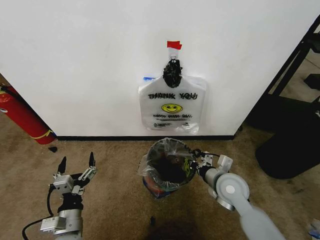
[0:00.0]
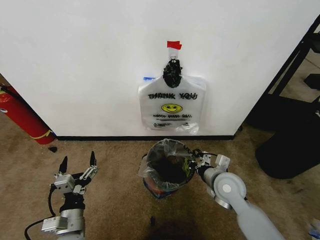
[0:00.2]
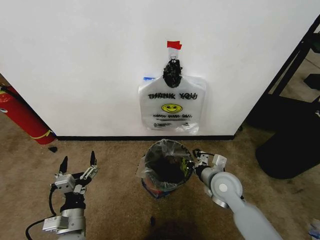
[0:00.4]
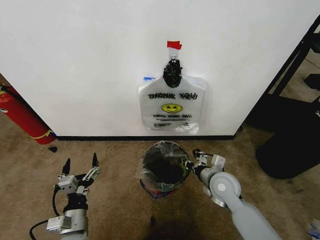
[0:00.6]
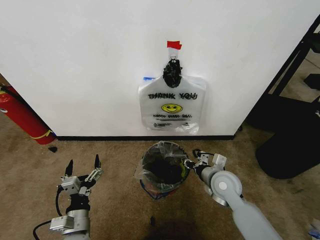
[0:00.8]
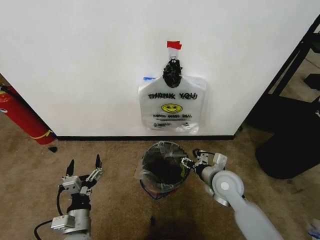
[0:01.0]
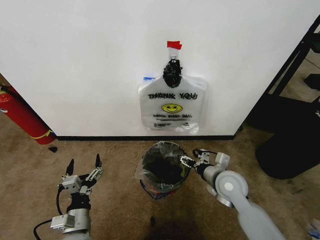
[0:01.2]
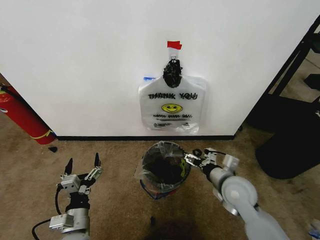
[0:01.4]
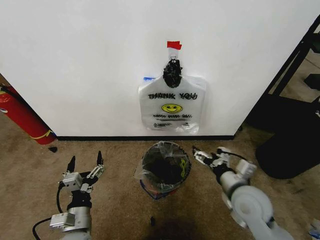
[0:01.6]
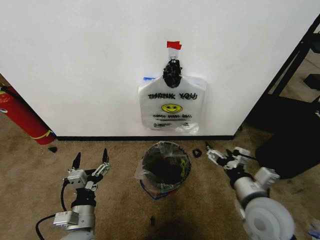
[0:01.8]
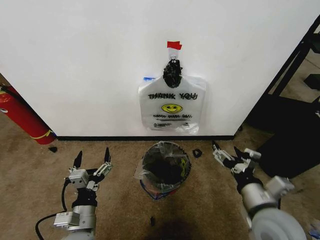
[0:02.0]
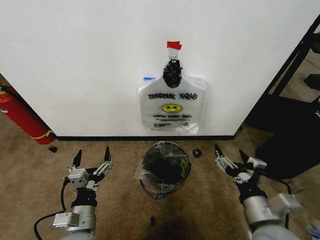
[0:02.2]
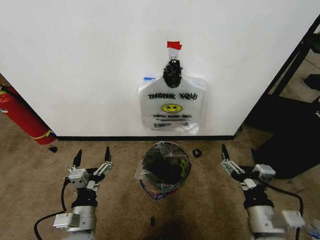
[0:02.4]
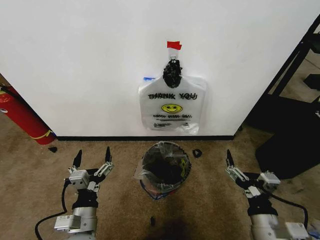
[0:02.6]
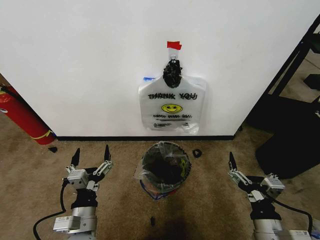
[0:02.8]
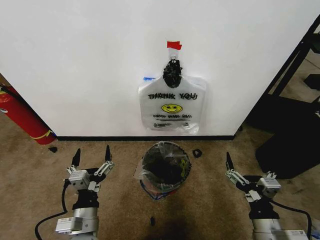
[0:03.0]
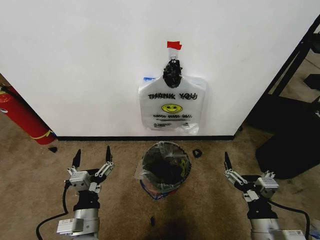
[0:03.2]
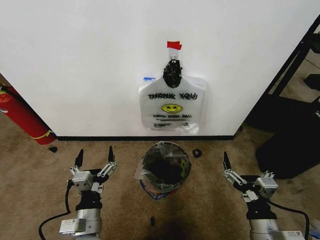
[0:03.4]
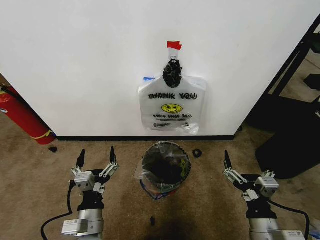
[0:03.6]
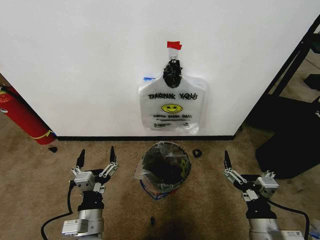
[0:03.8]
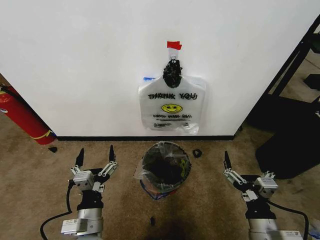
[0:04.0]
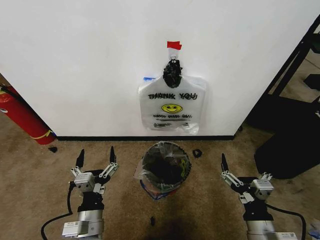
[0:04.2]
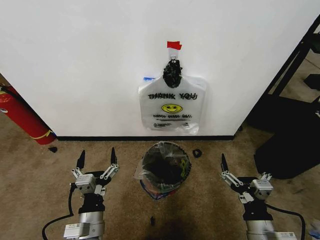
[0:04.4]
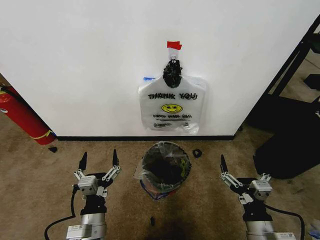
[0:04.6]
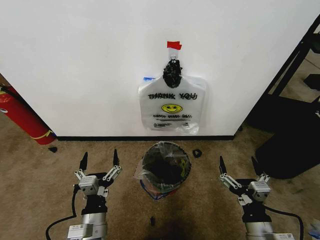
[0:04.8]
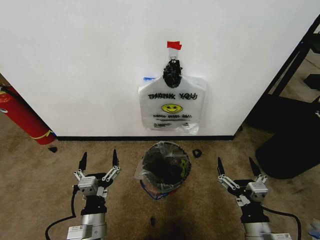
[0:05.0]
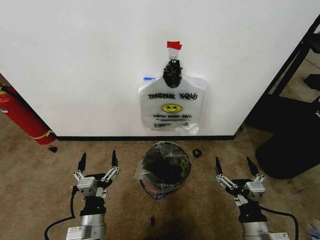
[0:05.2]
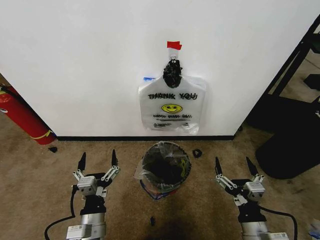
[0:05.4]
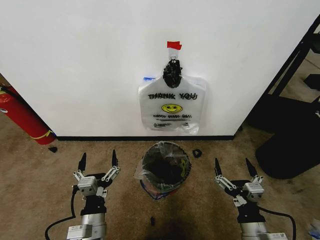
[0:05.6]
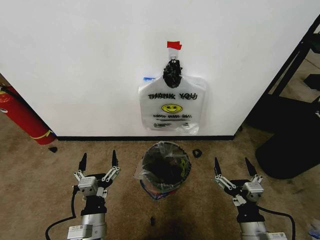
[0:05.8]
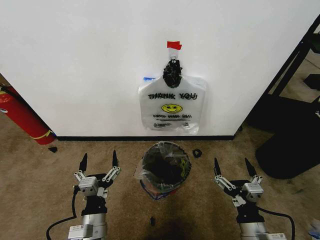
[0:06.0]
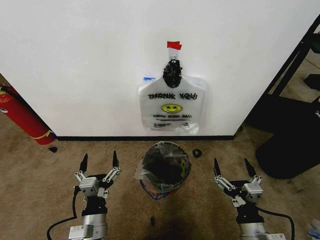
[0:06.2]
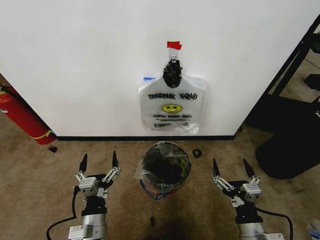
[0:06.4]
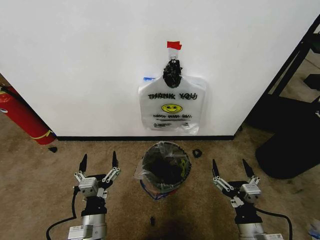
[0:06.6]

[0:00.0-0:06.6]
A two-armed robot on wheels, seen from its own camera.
Task of the whole recording: Pick up the garbage bag from the wall and place it over the trash bin.
0:00.0 to 0:01.6: The right gripper ends up roughly 5 cm from where it was, and opens its fingers.
0:01.6 to 0:03.2: The right gripper moves backward, about 15 cm. The left gripper shifts by approximately 5 cm.
0:03.2 to 0:06.6: The grippers make only small movements.

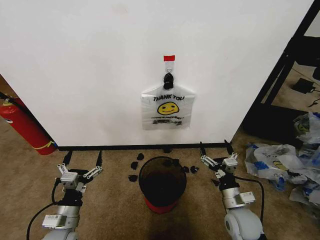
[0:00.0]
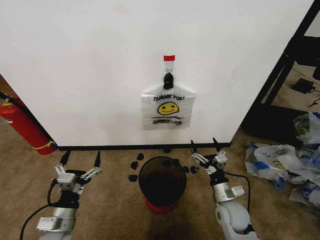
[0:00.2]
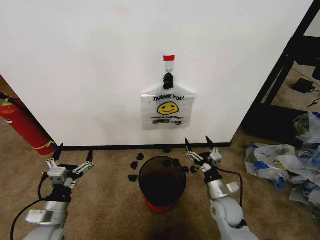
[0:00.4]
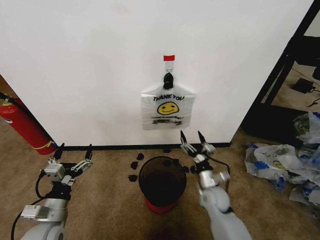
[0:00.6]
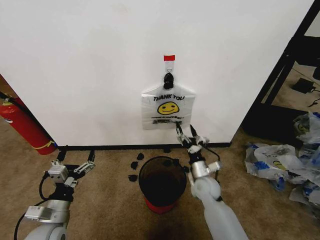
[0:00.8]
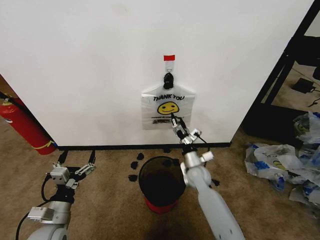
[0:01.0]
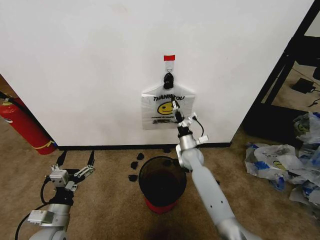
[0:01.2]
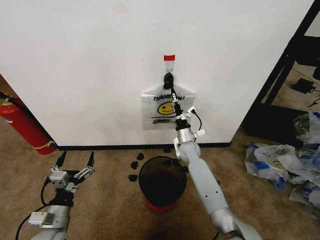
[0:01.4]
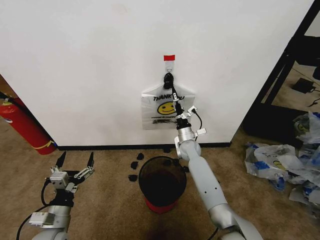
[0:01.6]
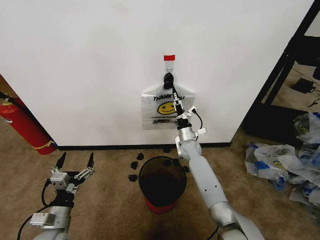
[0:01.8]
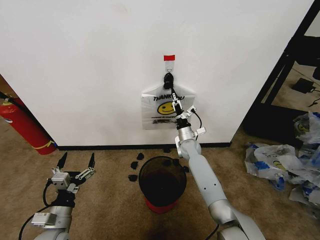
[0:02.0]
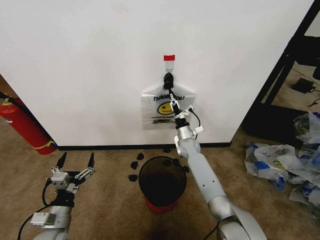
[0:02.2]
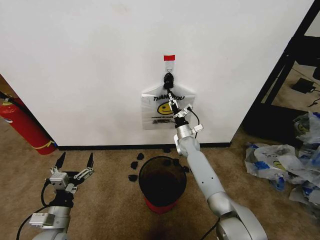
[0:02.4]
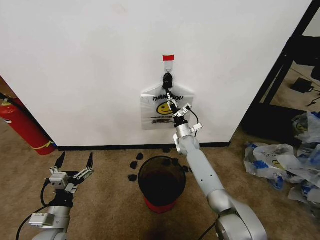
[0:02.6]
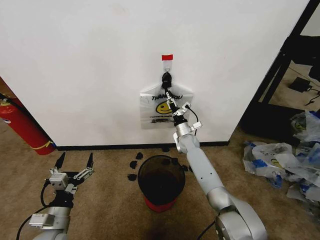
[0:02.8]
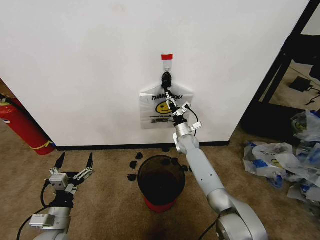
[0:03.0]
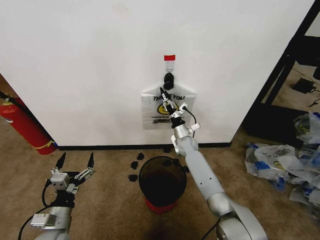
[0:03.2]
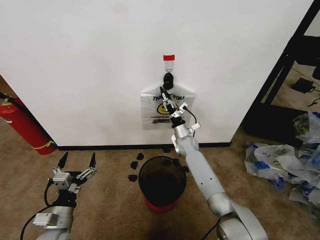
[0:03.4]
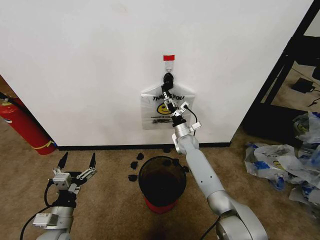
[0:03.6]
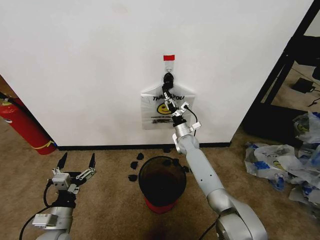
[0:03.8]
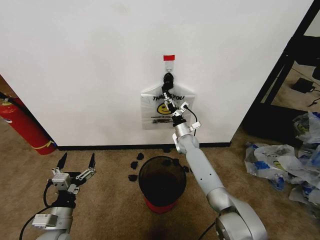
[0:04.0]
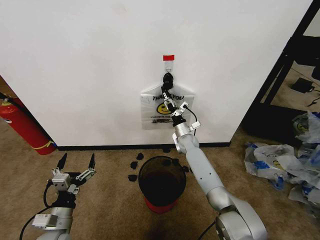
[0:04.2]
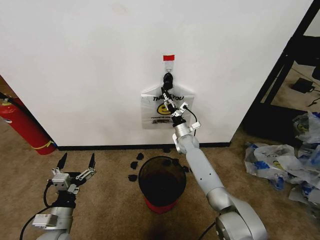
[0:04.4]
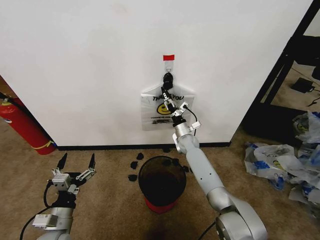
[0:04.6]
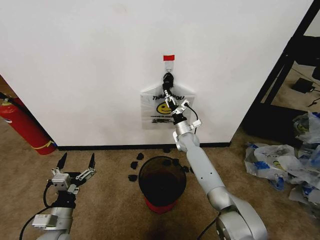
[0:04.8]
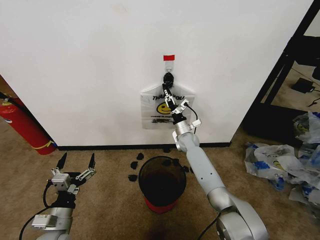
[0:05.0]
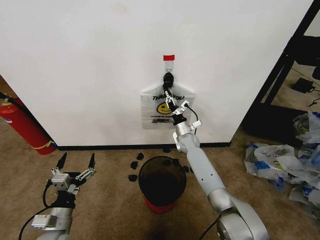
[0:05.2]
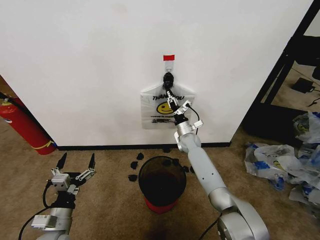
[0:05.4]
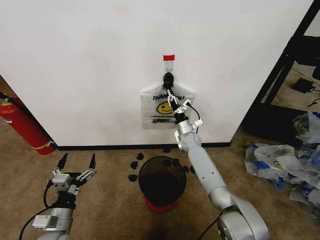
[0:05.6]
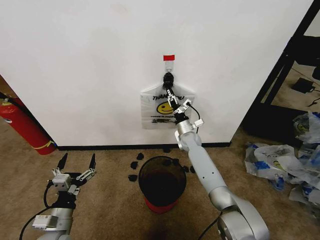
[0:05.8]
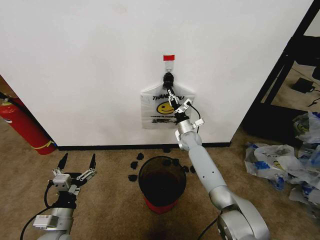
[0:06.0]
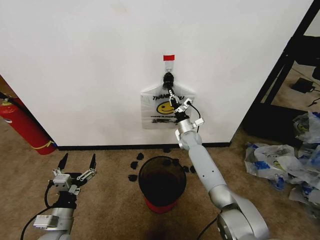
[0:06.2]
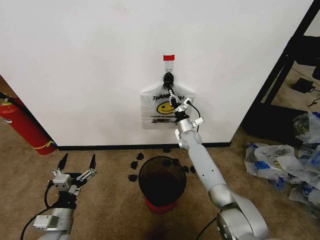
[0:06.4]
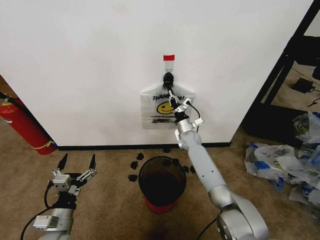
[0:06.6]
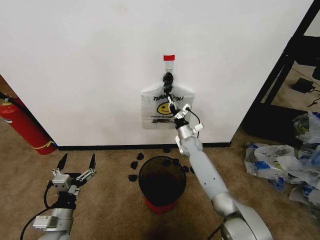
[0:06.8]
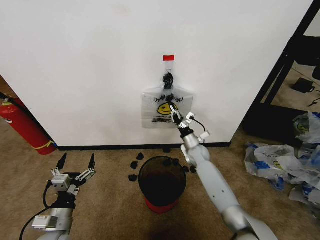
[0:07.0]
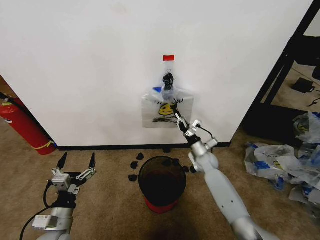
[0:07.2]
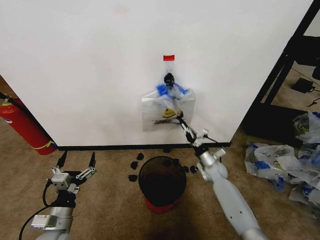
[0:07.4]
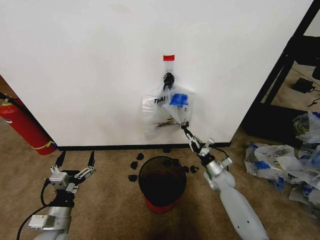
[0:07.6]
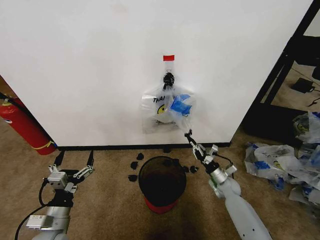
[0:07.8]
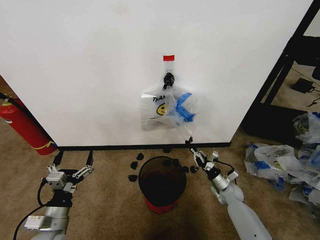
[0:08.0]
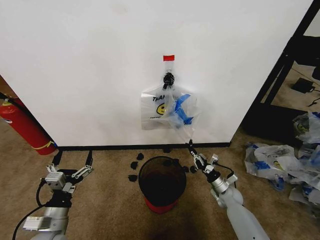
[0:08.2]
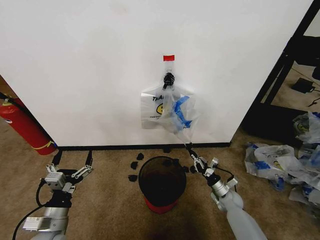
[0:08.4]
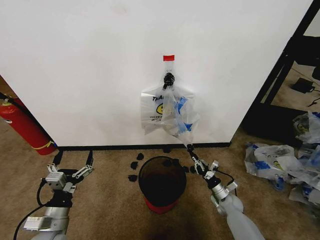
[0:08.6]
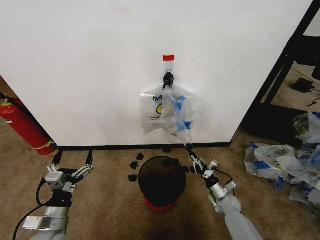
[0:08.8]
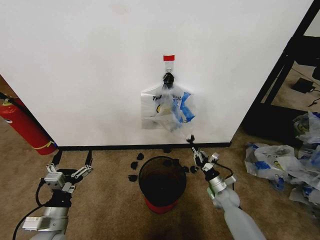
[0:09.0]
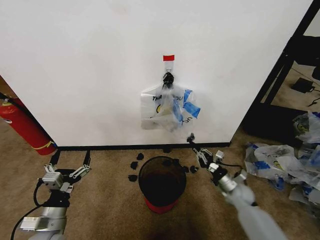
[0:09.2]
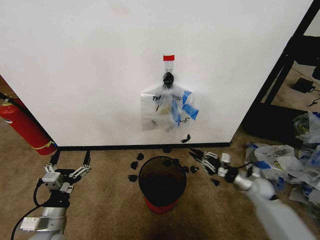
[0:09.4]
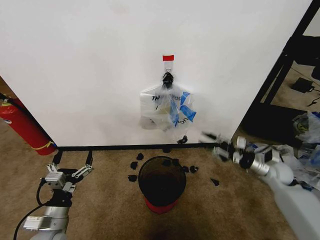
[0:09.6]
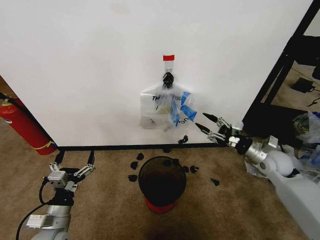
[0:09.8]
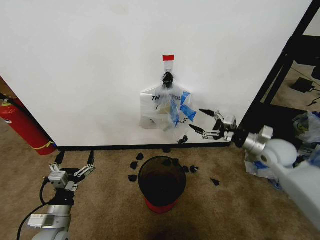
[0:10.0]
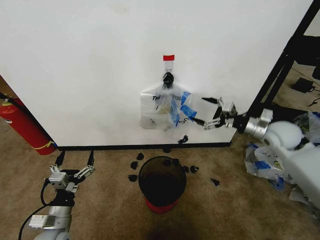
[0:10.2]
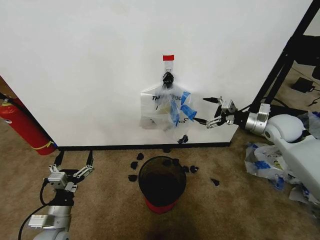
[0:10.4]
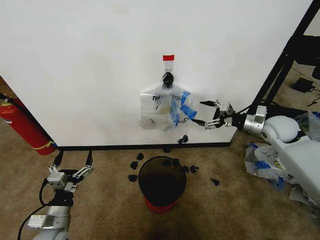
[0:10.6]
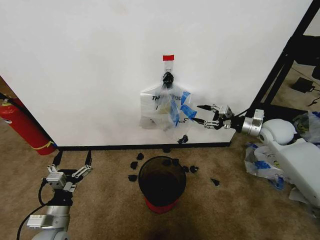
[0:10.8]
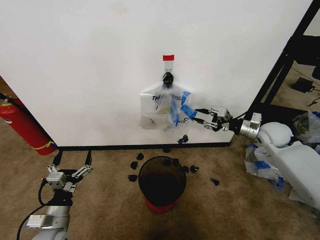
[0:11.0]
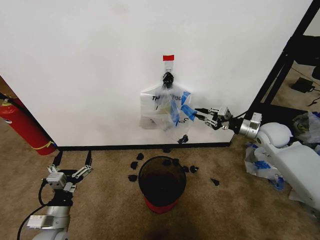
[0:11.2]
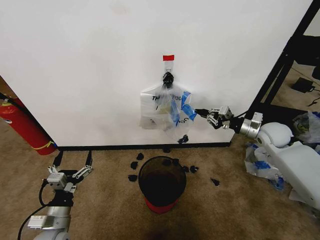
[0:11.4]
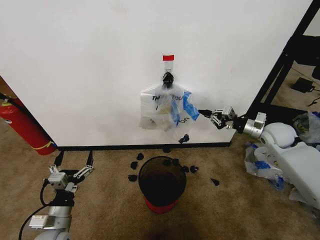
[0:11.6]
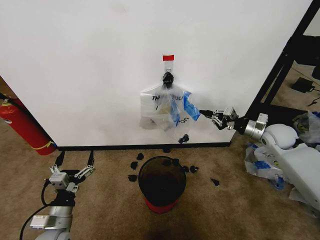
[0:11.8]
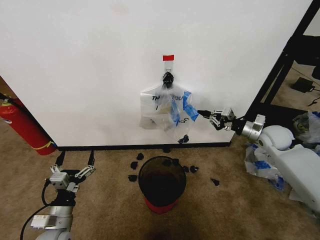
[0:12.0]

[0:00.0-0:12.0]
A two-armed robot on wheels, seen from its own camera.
Task of the whole recording: Pick up the garbage bag from the wall and place it over the trash bin.
0:01.6 to 0:04.4: The grippers stay close to where they were, moving slightly.
0:04.4 to 0:06.0: The right gripper closes.
0:06.0 to 0:07.6: The right gripper is displaced backward, to the right and downward by some 25 cm.
0:07.6 to 0:09.0: The right gripper shifts roughly 5 cm backward.
0:09.0 to 0:10.4: The right gripper shifts some 35 cm upward, and opens.
0:10.4 to 0:12.0: The right gripper moves downward, about 5 cm, and closes up.

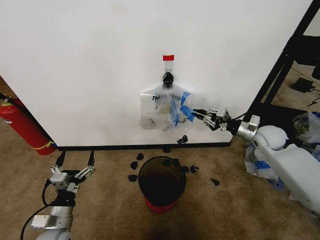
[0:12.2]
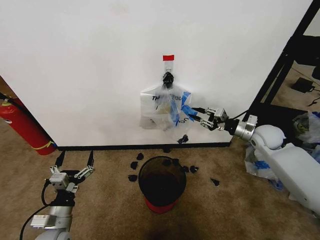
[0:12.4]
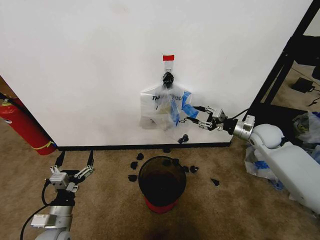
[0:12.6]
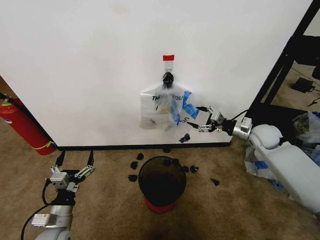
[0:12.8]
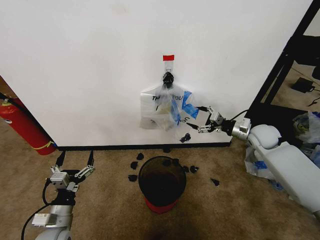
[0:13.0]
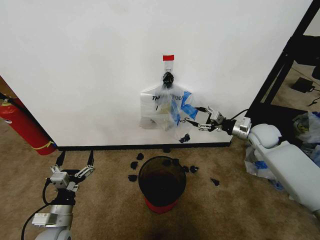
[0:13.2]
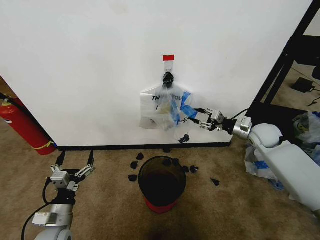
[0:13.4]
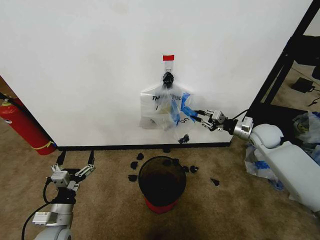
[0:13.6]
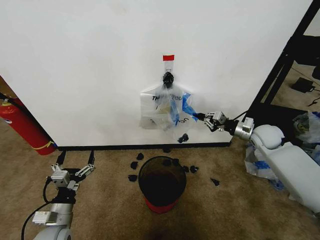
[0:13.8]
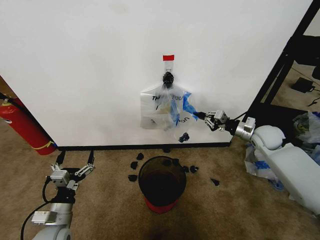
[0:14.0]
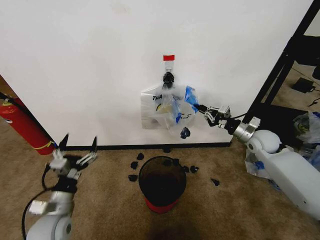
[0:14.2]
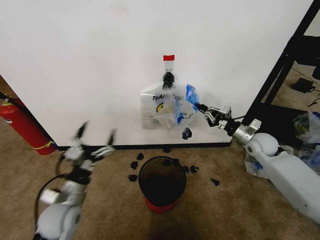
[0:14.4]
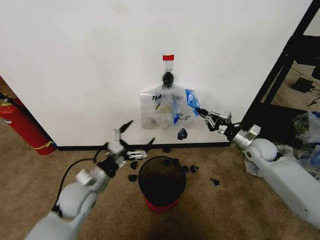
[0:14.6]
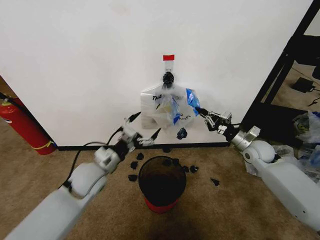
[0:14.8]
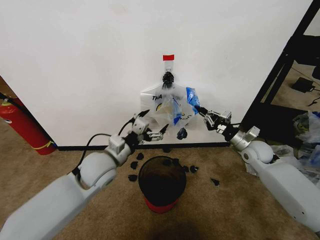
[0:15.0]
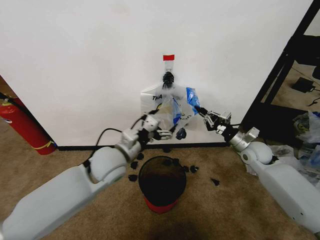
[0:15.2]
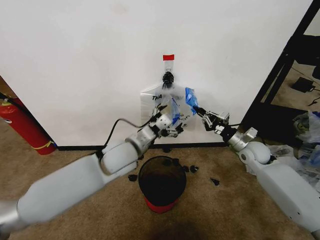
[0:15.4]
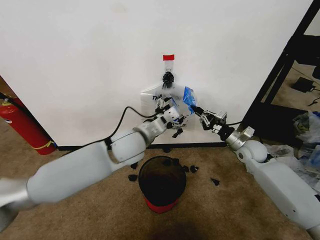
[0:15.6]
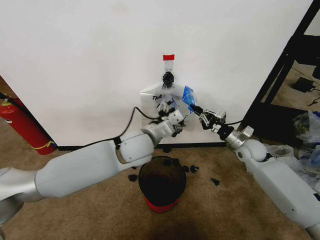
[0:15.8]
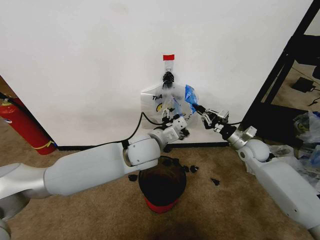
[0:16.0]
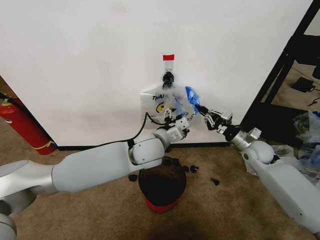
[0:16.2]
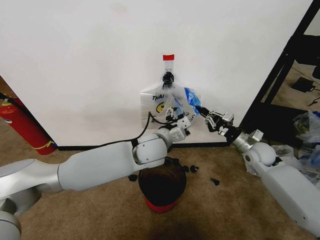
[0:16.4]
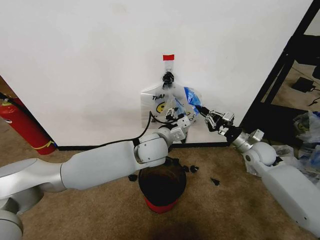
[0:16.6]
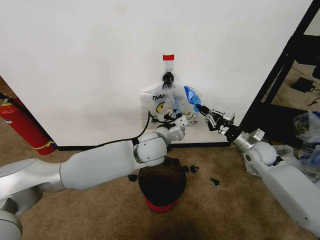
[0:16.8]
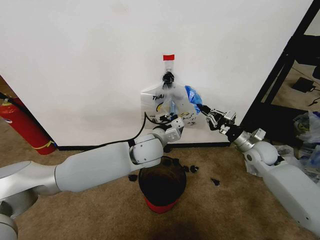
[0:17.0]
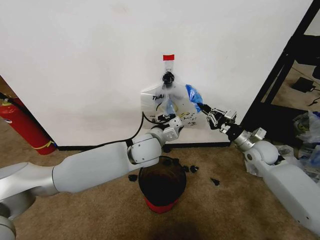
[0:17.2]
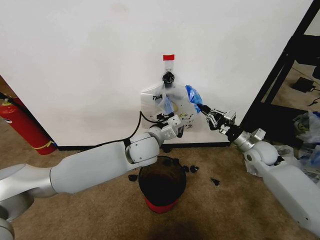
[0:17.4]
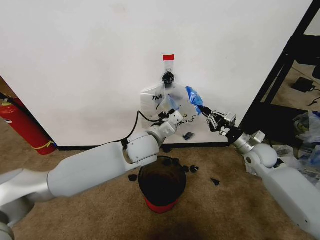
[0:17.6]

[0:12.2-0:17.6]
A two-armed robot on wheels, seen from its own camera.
Task of the whole recording: Pick up the garbage bag from the wall and place it over the trash bin.
0:12.2 to 0:13.6: The right gripper opens and closes again.
0:13.6 to 0:15.0: The right gripper shifts by some 5 cm, while the left gripper goes about 25 cm upward, forward and to the right.
0:15.0 to 0:16.2: The left gripper is displaced to the right by about 15 cm.
0:16.2 to 0:17.6: The left gripper closes up.
